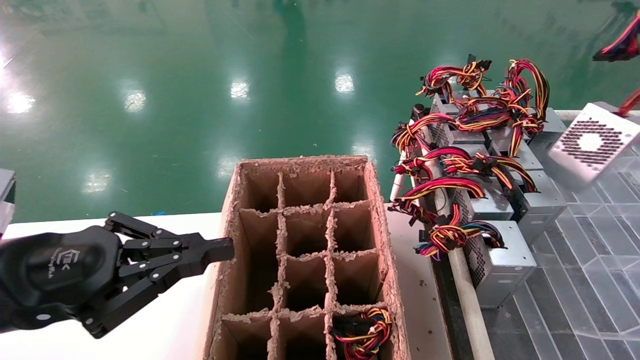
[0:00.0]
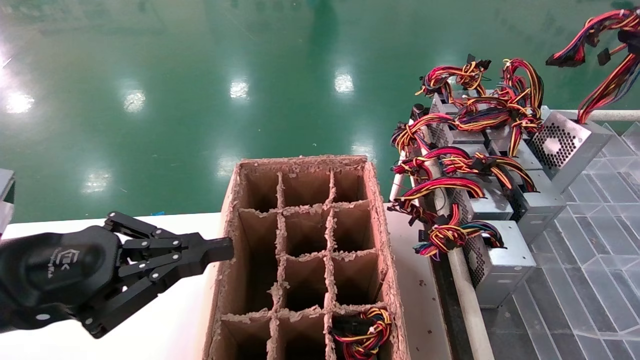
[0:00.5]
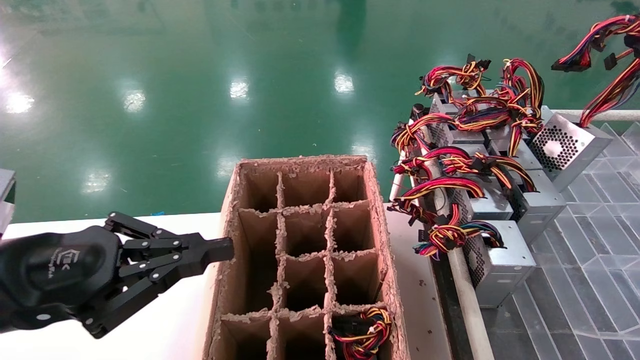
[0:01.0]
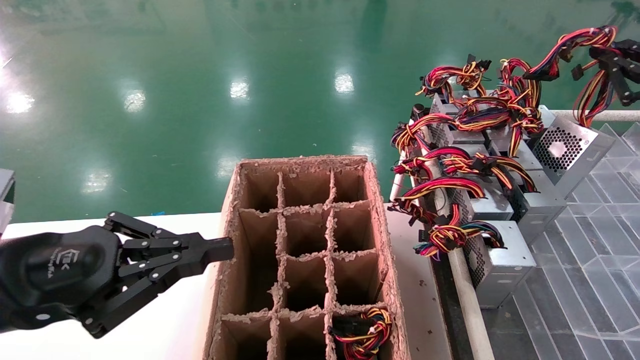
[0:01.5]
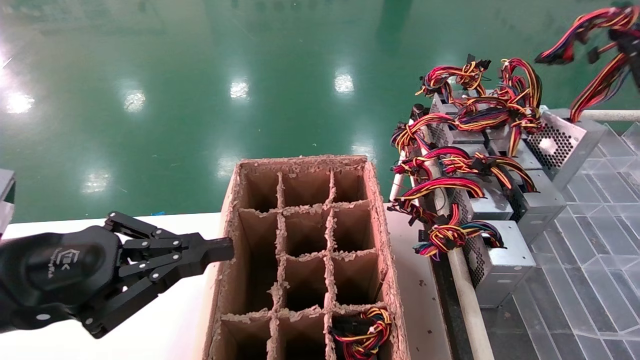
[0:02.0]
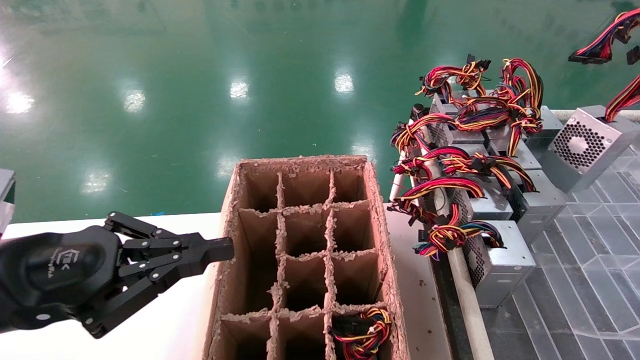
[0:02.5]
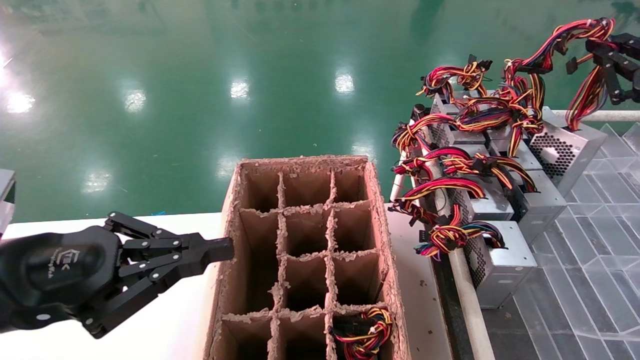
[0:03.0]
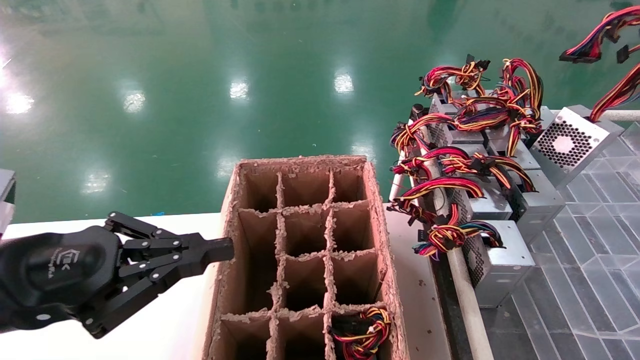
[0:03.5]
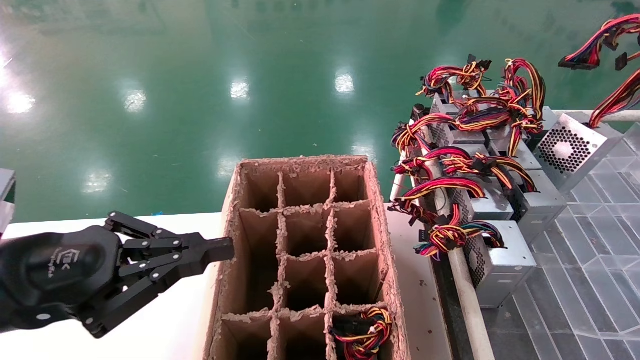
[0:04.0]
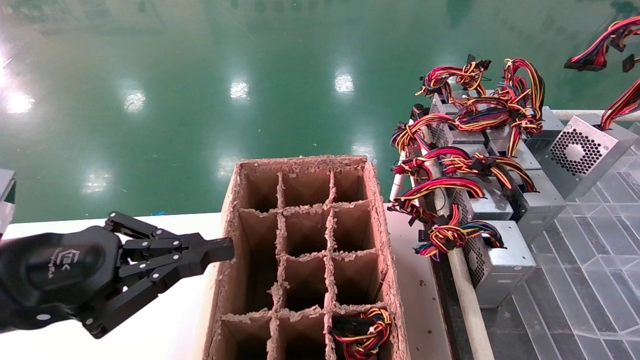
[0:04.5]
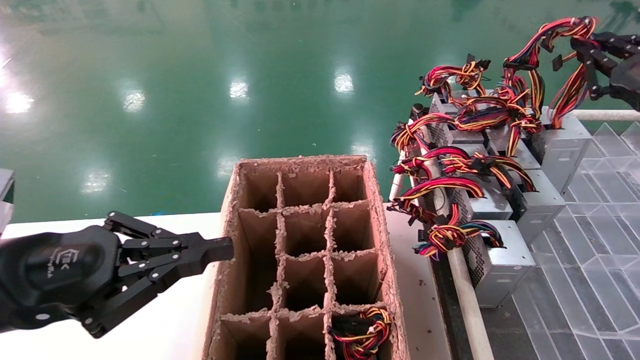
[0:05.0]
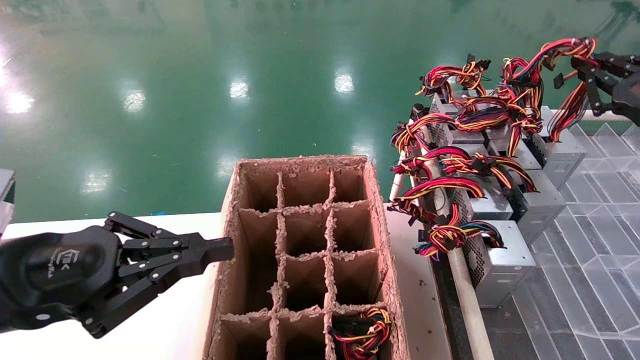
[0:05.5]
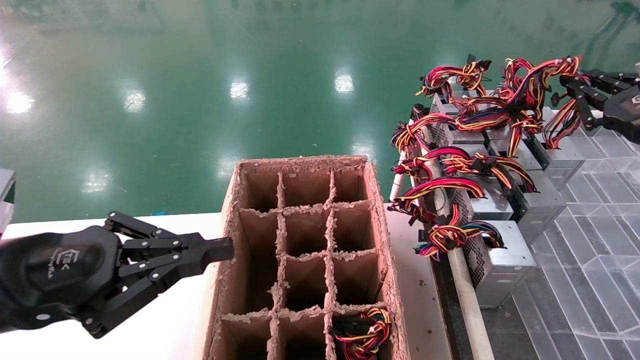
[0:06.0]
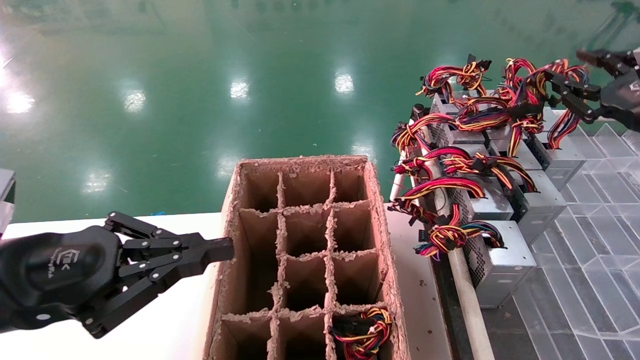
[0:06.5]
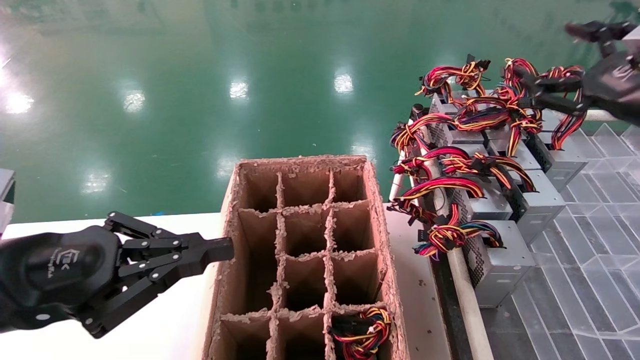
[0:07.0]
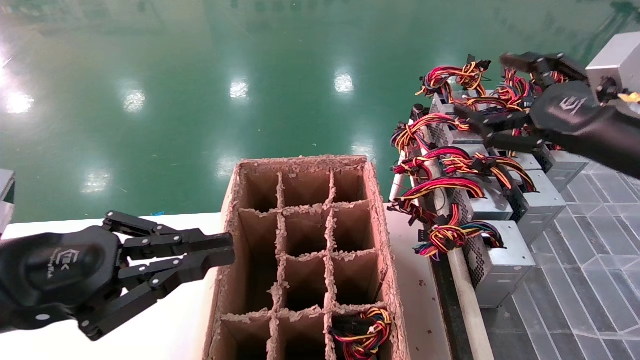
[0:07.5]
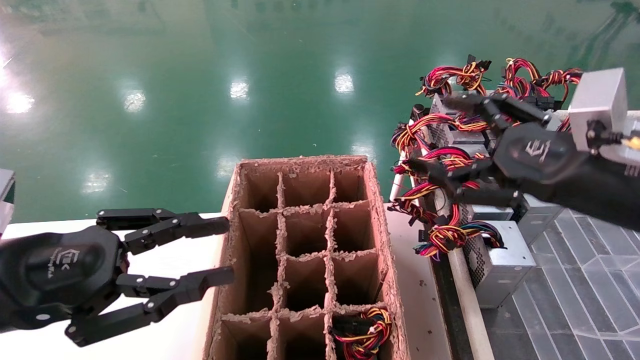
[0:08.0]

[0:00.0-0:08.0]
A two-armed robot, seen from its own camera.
Step, 0:00.0 to 0:07.0: Place the main unit power supply in the designated area.
0:00.0 to 0:02.0: The right gripper ends up approximately 5 cm from where it was.
0:02.0 to 0:04.0: There are only small adjustments of the grippers.
0:04.0 to 0:06.0: The right gripper changes place by approximately 5 cm.
0:06.0 to 0:08.0: The right gripper shifts some 15 cm to the left and backward, and opens its fingers.
